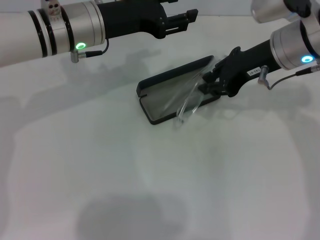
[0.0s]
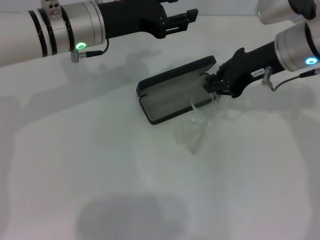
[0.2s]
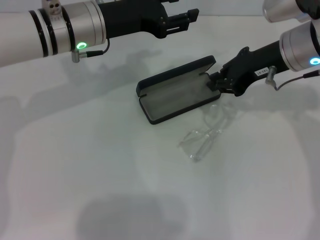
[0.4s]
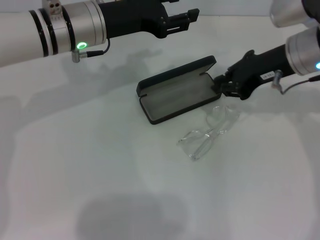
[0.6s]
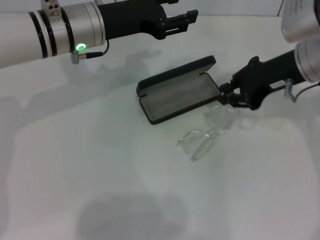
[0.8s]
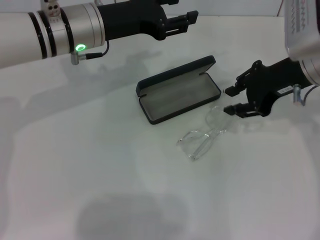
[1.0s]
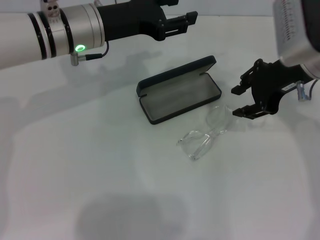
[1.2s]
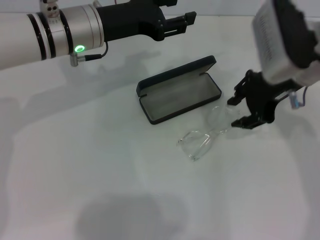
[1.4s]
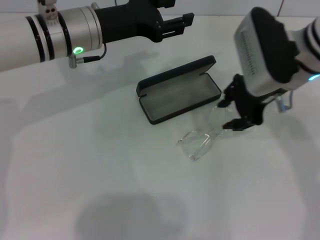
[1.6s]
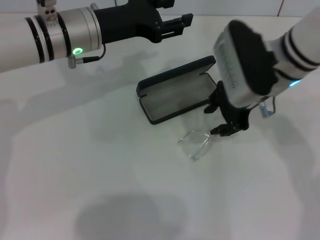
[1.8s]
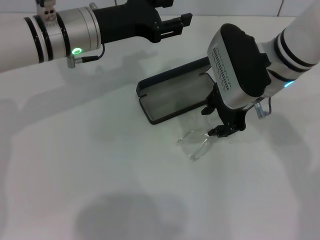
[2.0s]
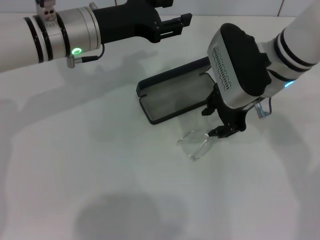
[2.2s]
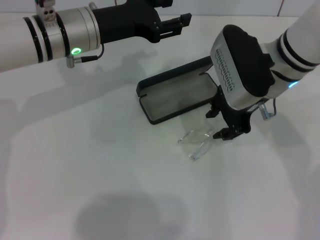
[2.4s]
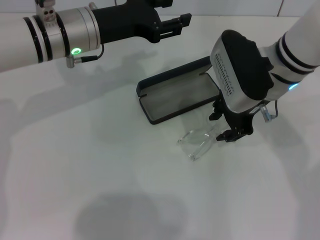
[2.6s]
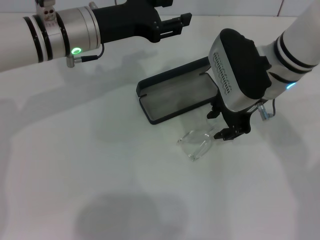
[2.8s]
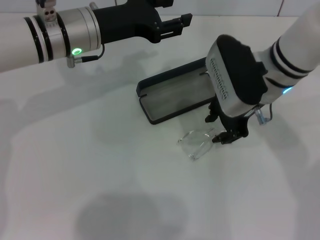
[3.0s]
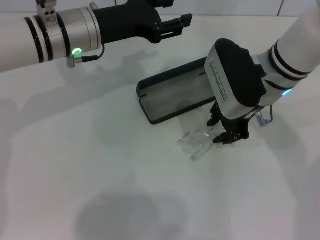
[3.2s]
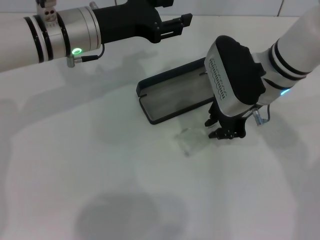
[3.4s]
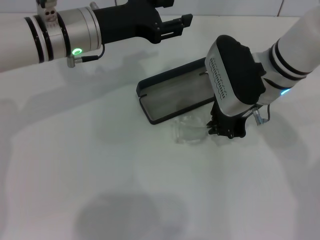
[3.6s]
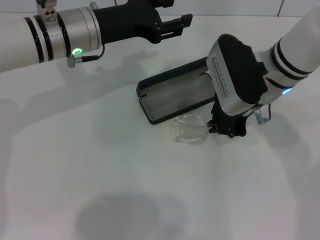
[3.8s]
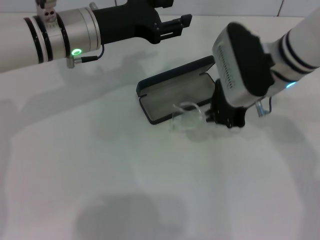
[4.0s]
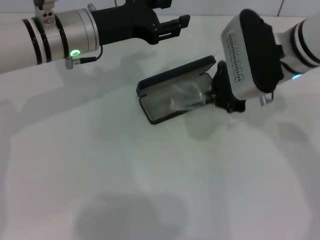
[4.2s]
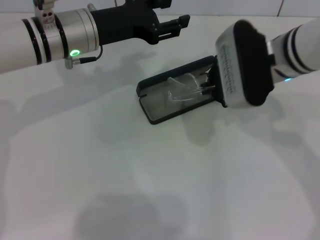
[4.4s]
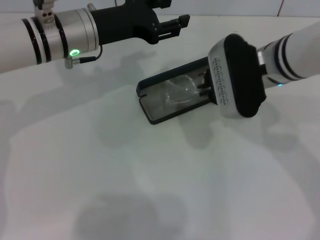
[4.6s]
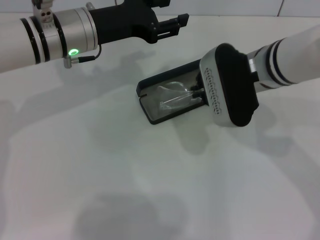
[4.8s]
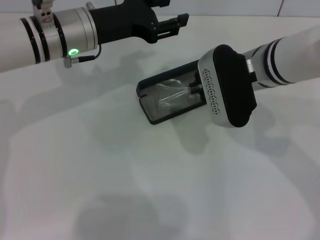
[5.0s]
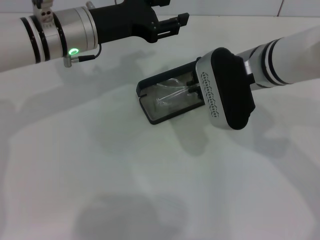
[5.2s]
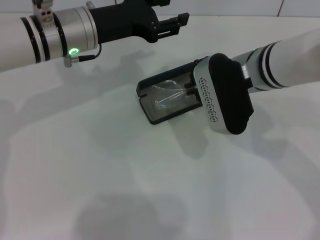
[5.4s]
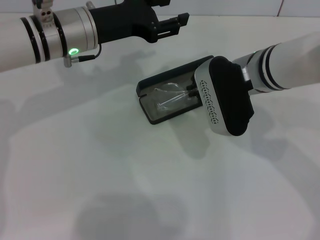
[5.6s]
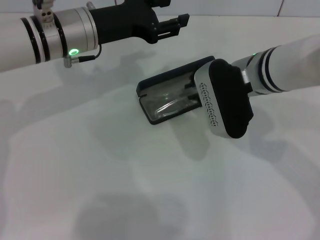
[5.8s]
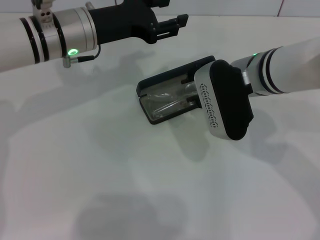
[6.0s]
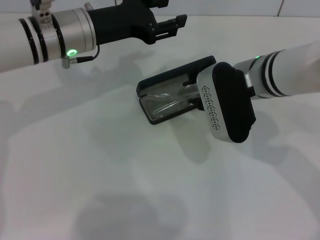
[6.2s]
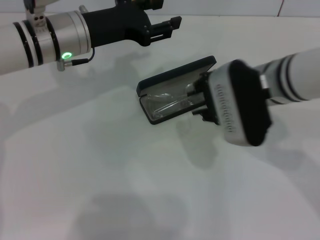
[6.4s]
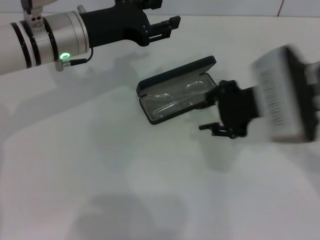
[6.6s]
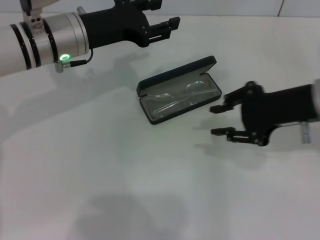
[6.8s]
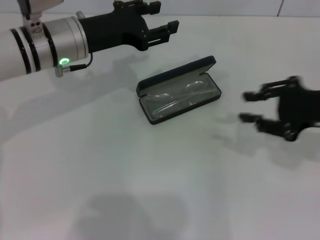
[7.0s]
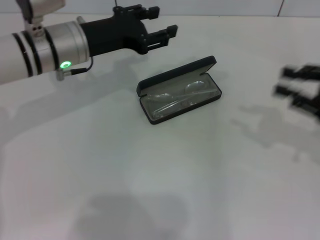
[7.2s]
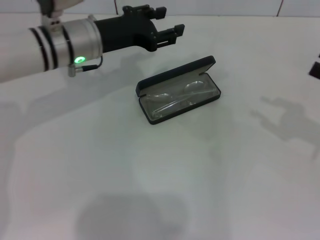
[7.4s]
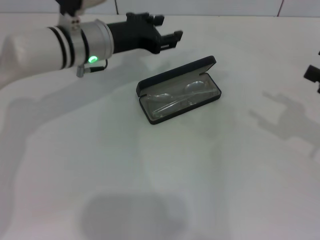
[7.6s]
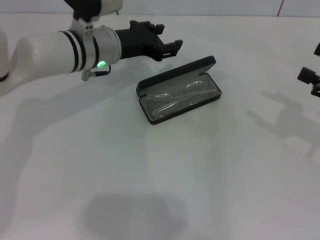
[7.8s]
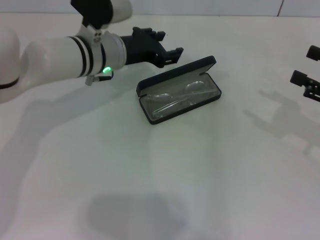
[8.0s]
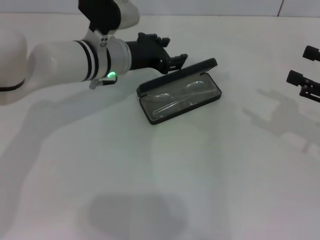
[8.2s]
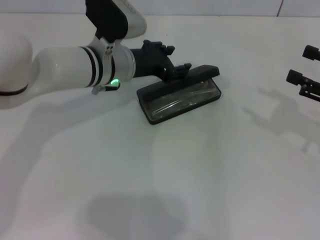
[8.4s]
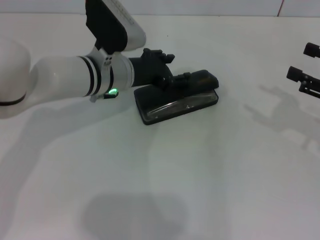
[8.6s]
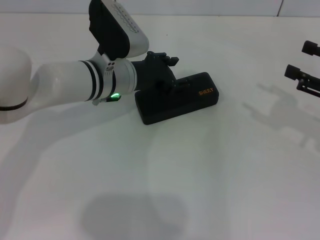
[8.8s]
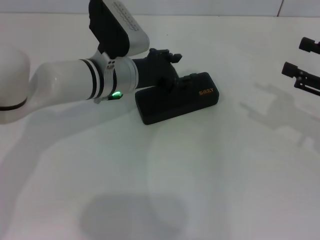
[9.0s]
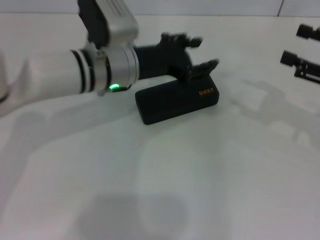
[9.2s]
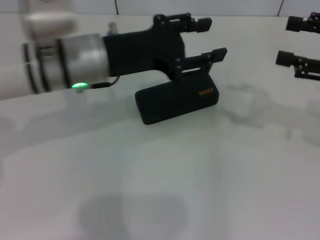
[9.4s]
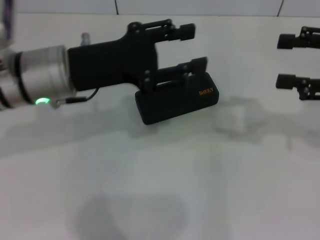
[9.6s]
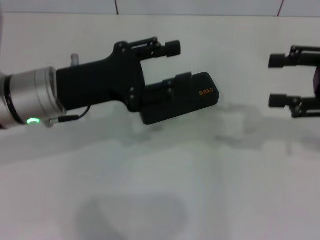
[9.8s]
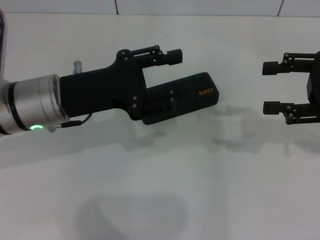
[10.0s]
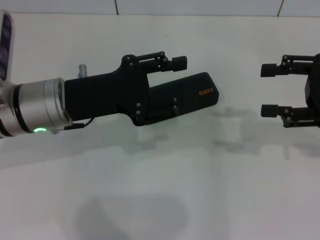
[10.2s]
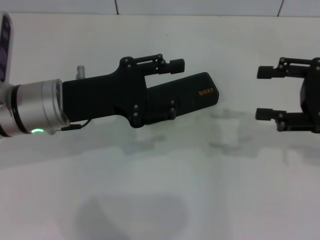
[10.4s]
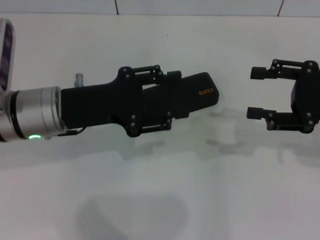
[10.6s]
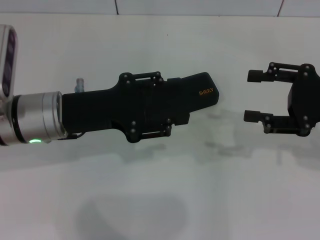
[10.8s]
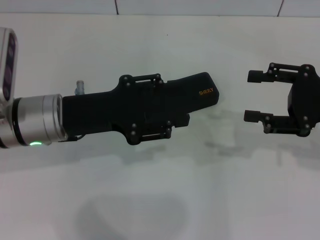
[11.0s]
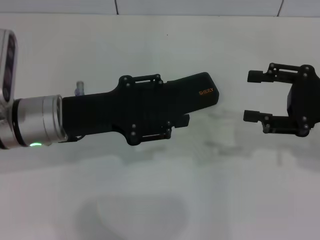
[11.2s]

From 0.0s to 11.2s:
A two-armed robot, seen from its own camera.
Step, from 0.0s to 6.2s: Put the glasses into the case with your right hand.
Step, from 6.4s to 8.8s: Close the glasses case with your left hand.
From 0.0s to 1.6s: The right gripper closes and opens again.
From 1.6s to 3.2s: The grippers stay close to where they were, moving slightly.
From 3.2s to 4.8s: The right gripper closes its fingers.
From 4.8s to 6.4s: The right gripper opens.
From 6.4s to 8.0s: The right gripper travels to the right by roughly 20 cm, and opens up. Meanwhile the left gripper shifts by roughly 5 cm.
From 8.0s to 9.6s: The left gripper heads backward, upward and to the left, covering approximately 15 cm. Meanwhile the right gripper goes approximately 10 cm upward.
From 9.6s to 11.2s: The right gripper moves downward, roughly 5 cm. The left gripper changes place by approximately 5 cm.
